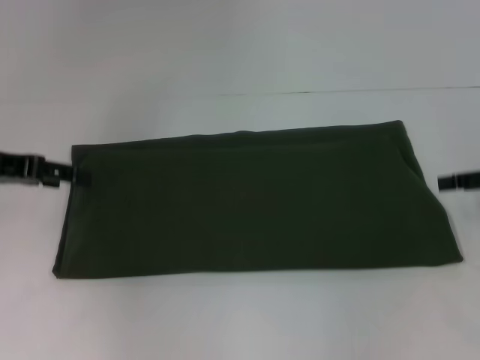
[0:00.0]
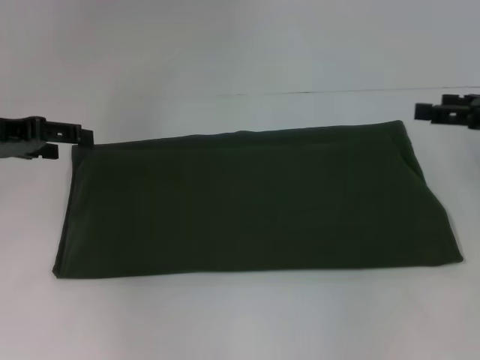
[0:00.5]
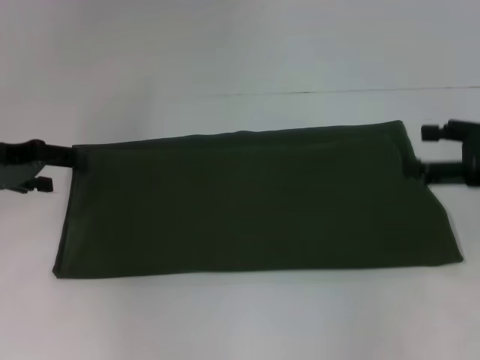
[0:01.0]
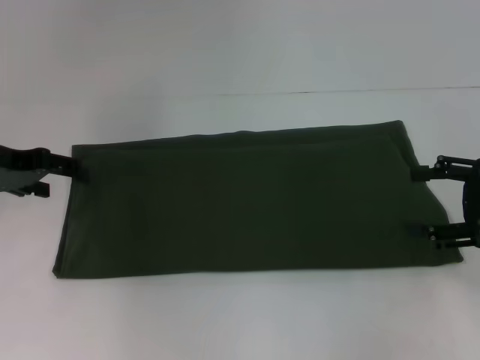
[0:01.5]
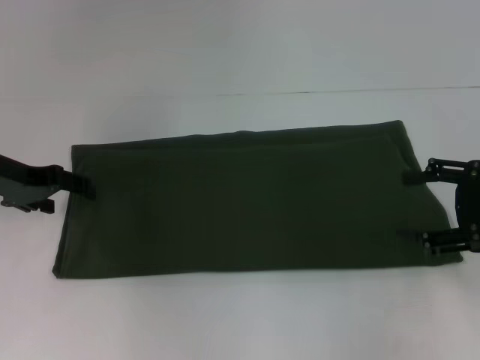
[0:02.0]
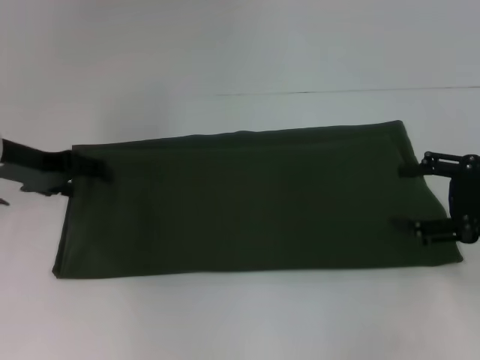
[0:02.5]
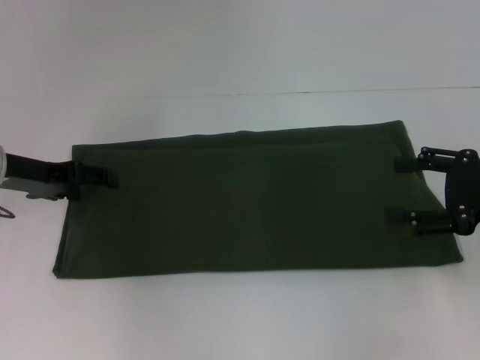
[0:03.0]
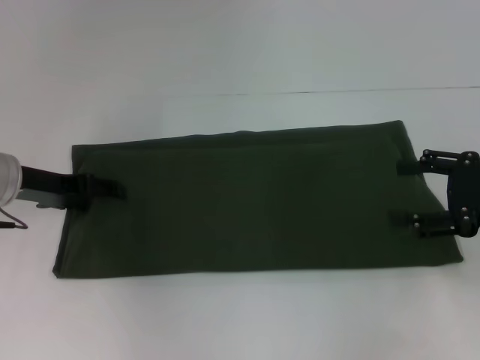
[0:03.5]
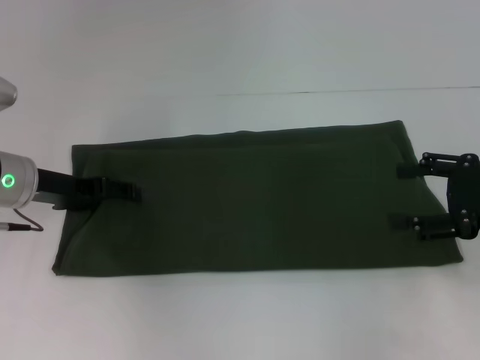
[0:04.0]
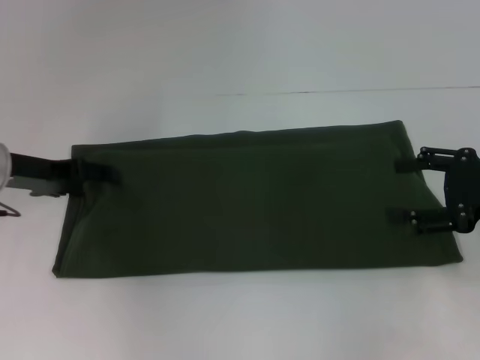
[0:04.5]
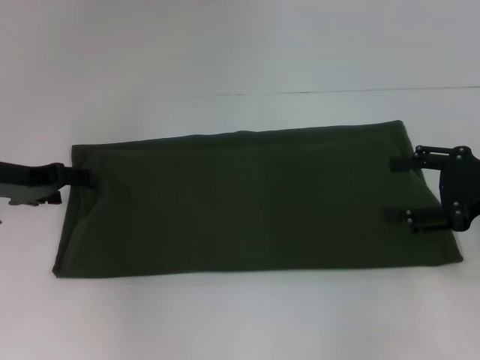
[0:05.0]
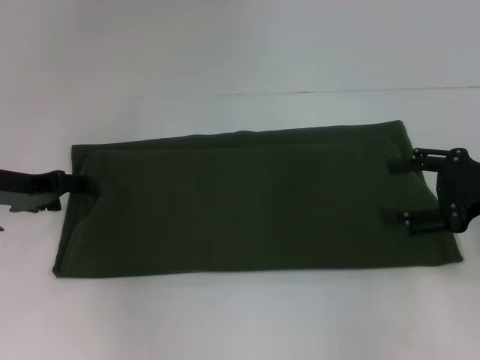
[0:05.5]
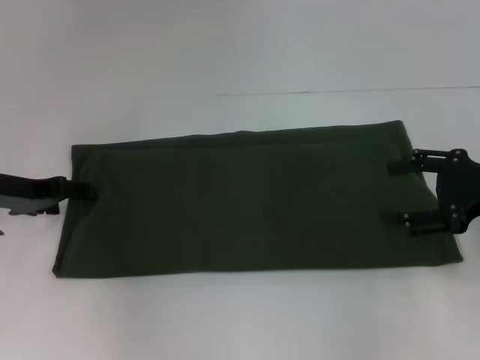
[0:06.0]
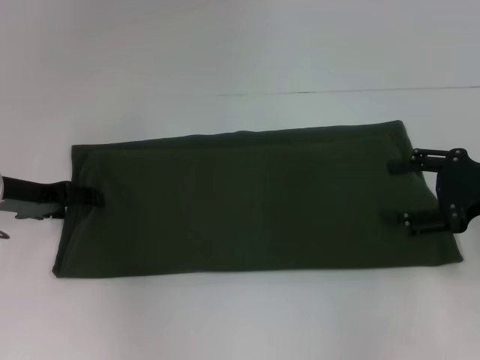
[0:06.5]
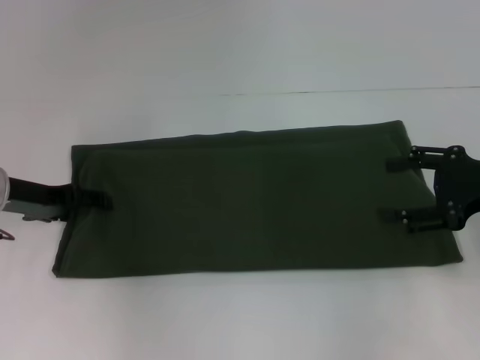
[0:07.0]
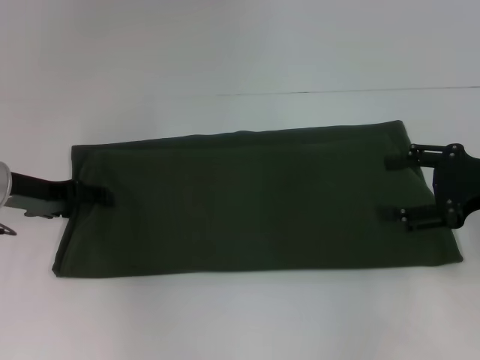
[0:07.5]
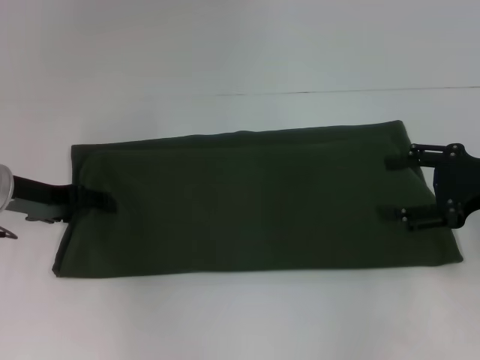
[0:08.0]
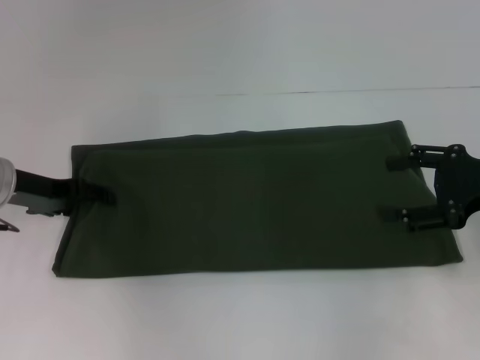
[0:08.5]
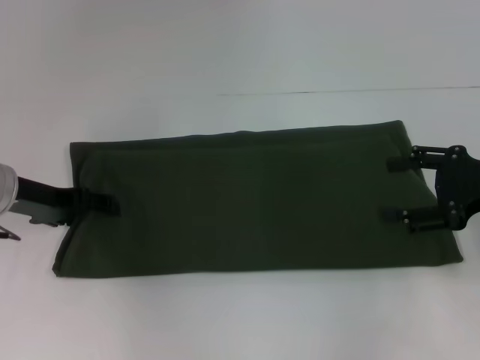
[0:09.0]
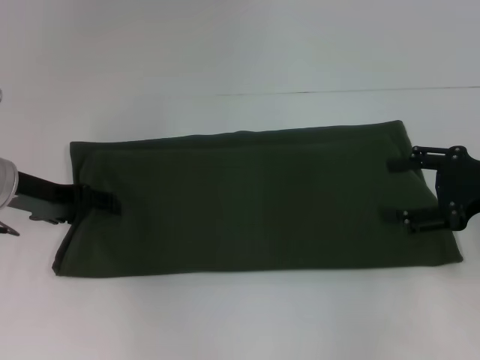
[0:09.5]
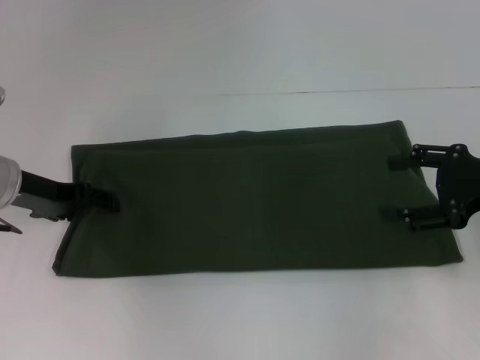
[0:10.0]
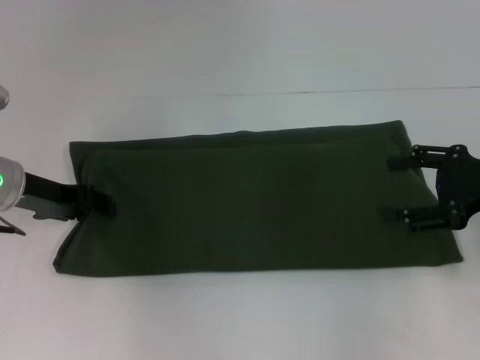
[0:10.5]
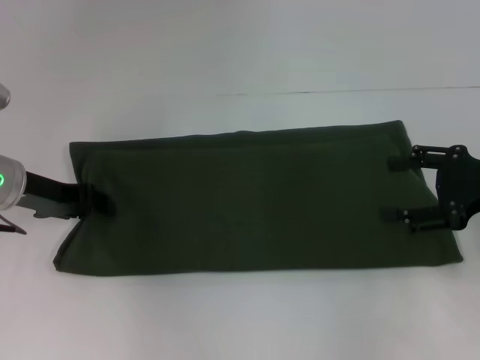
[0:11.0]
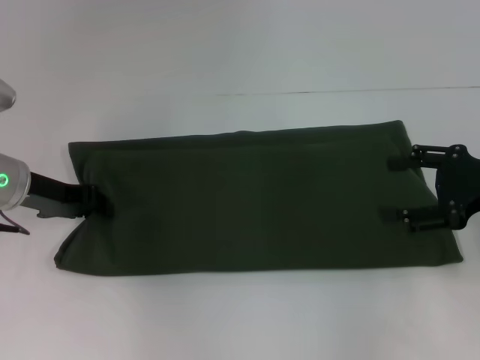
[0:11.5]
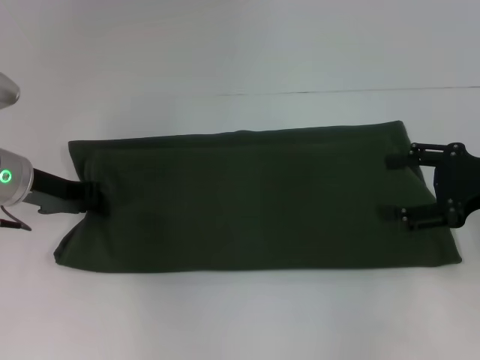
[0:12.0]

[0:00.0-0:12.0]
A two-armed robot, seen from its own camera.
0:00.0 to 0:02.0: The left gripper opens up, while the right gripper changes place by about 5 cm.
0:02.0 to 0:04.0: The left gripper ends up approximately 5 cm from where it was.
0:04.0 to 0:08.0: There are only small adjustments of the grippers.
0:08.0 to 0:10.0: Both grippers stay about where they are.
0:10.0 to 0:12.0: The left gripper closes up.

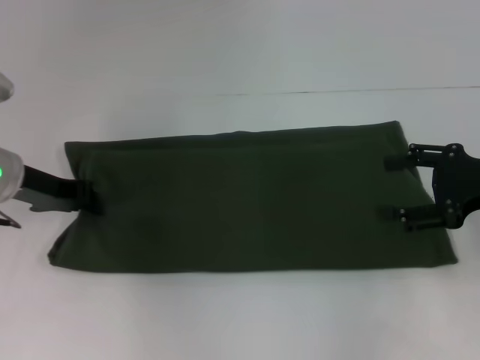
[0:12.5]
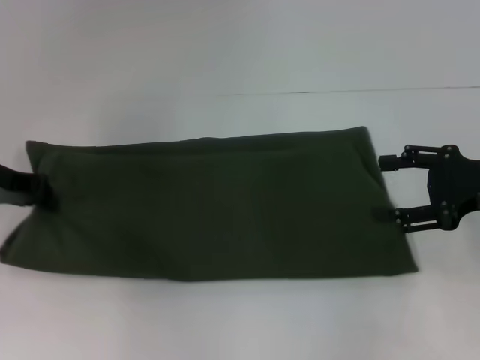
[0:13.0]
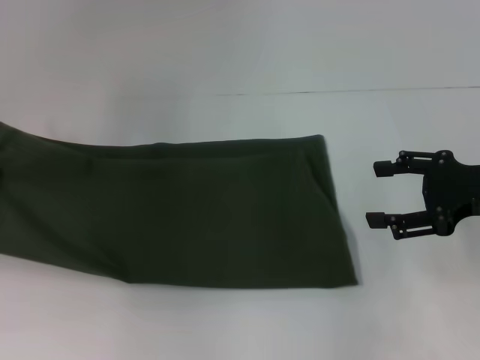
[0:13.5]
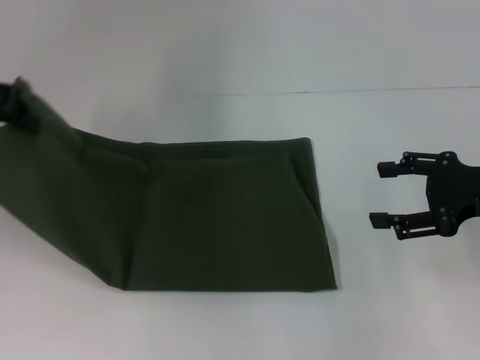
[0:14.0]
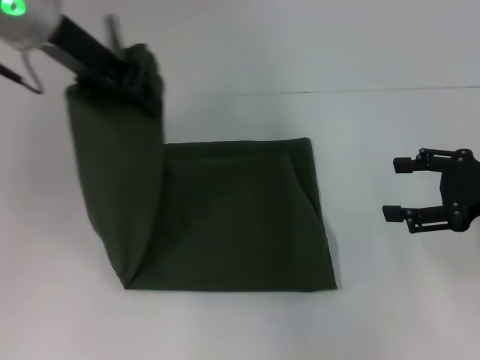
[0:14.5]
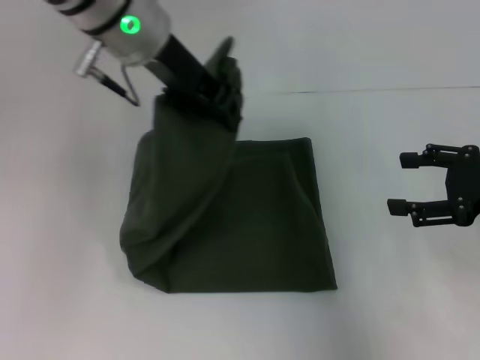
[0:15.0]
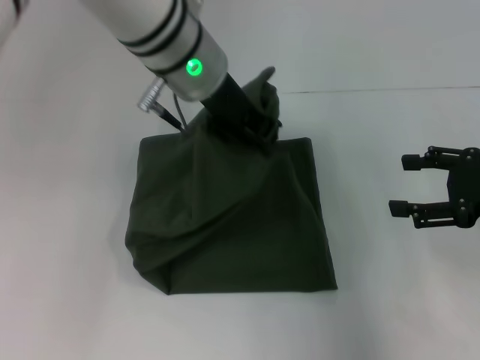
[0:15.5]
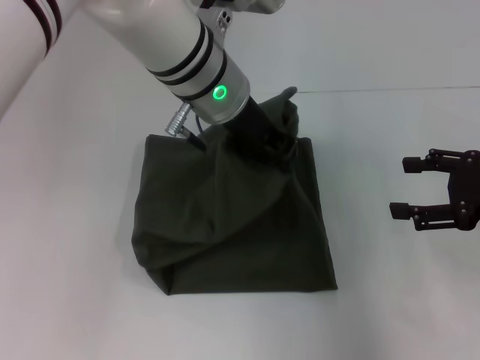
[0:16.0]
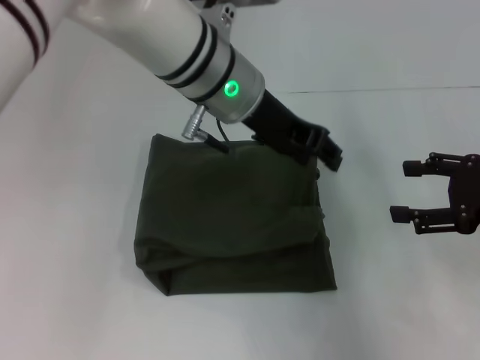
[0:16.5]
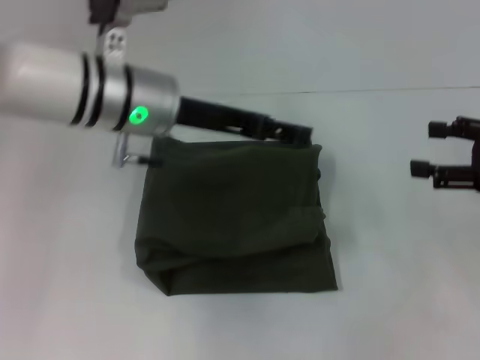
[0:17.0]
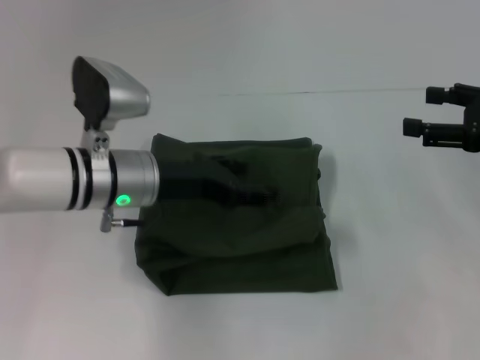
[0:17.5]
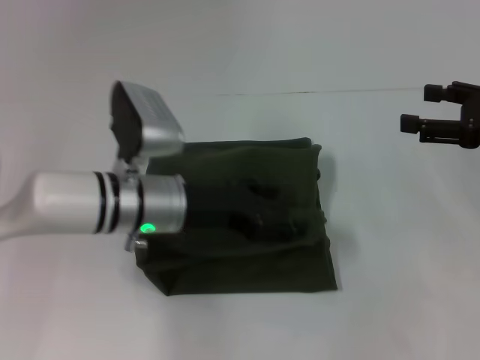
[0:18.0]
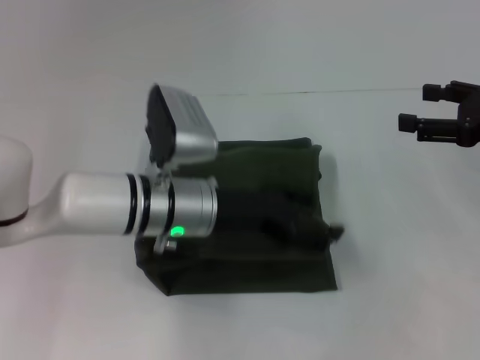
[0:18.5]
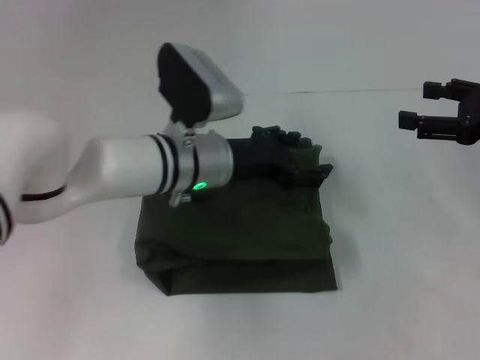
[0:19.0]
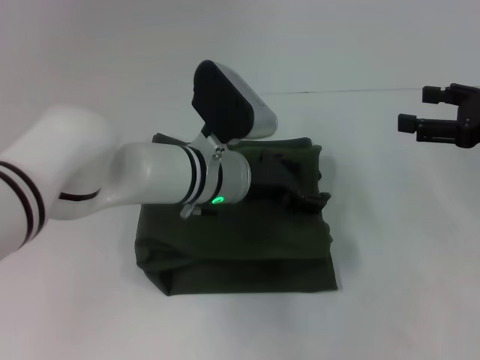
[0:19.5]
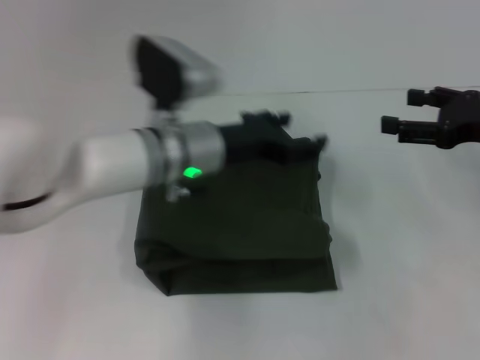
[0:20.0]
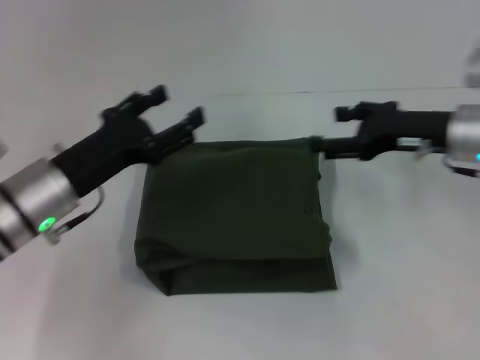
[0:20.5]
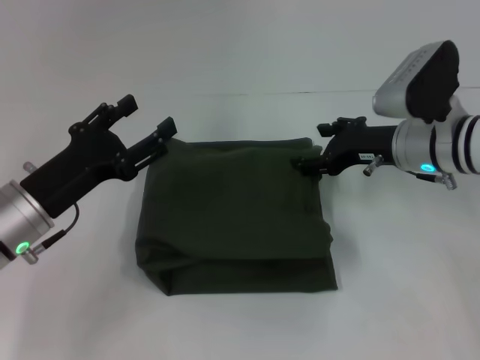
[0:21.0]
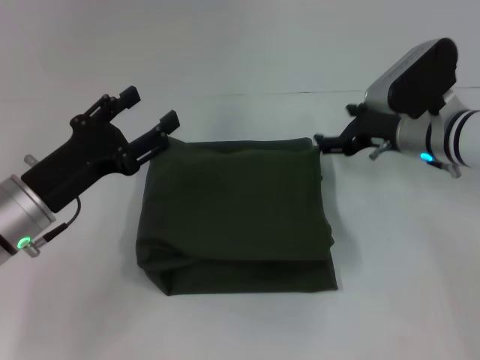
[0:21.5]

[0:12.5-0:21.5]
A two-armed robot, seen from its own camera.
Step, 0:12.5 to 0:18.5: Fold the clothes with your left hand.
0:12.5 to 0:14.5: The left gripper heads upward and to the right, covering approximately 20 cm.
0:14.5 to 0:17.0: The left gripper is displaced downward and to the right by some 10 cm, and opens up.
0:17.0 to 0:19.5: The left gripper heads downward and to the right, covering some 10 cm.
0:19.5 to 0:21.5: The right gripper shifts some 15 cm to the left, forward and downward; the left gripper moves to the left and backward, approximately 20 cm.

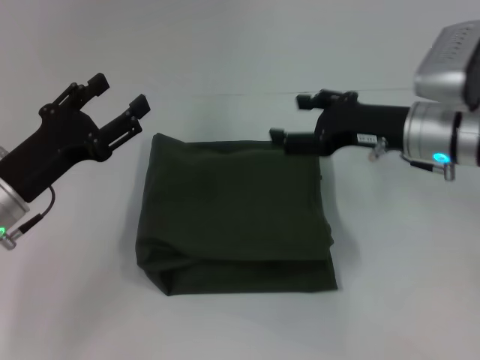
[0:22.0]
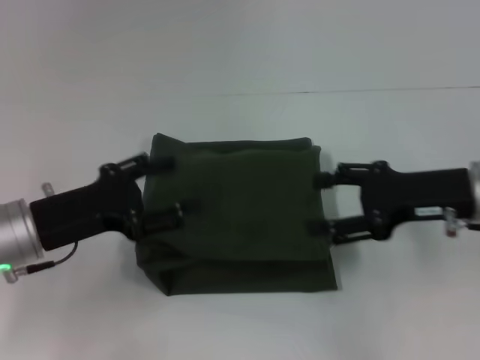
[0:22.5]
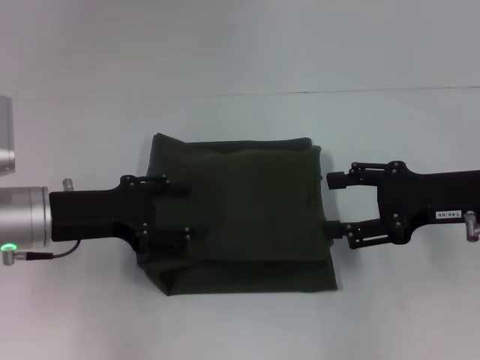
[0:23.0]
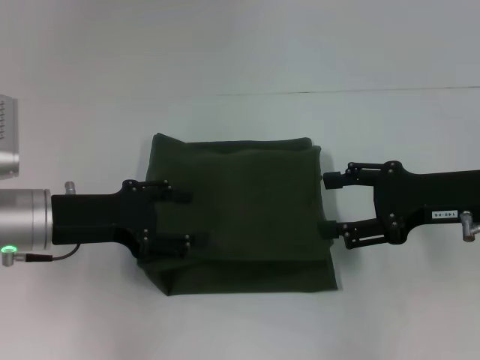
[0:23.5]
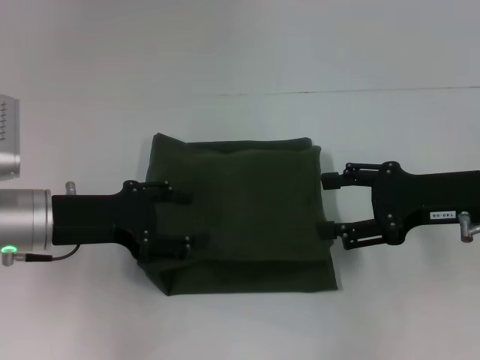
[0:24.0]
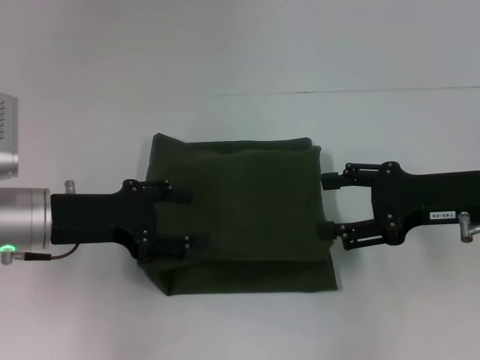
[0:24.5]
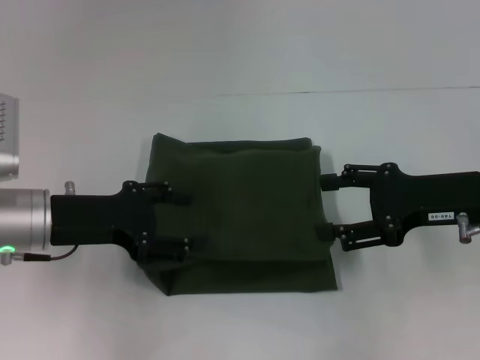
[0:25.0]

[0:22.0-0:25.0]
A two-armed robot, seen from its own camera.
0:22.0 to 0:23.5: The right gripper travels backward and to the right by approximately 10 cm.
0:23.5 to 0:25.0: Both grippers stay about where they are.

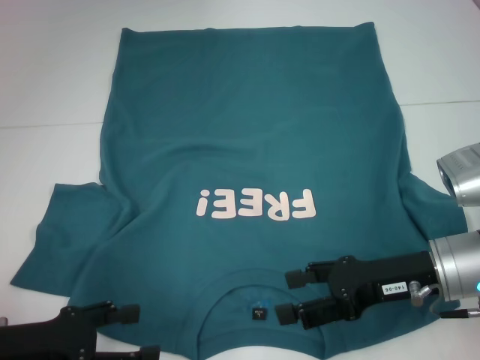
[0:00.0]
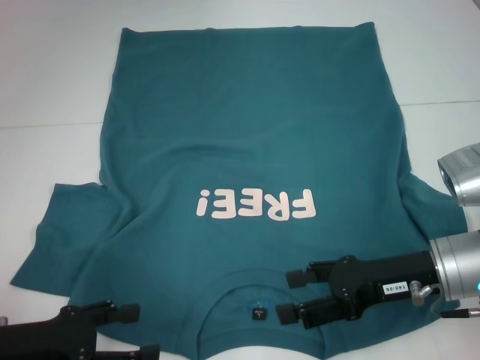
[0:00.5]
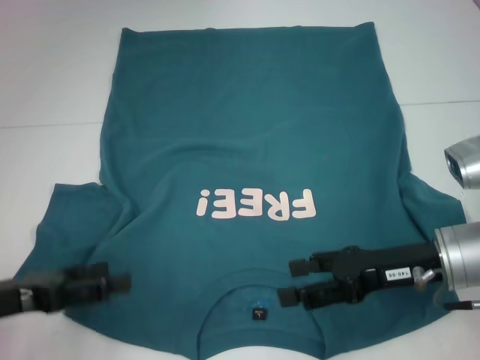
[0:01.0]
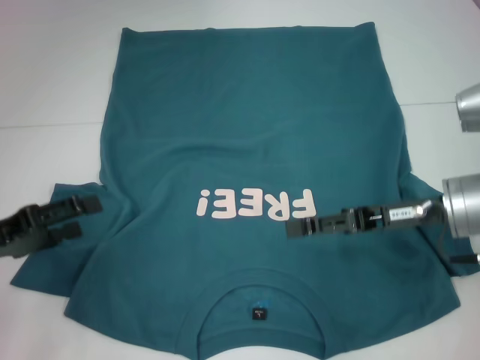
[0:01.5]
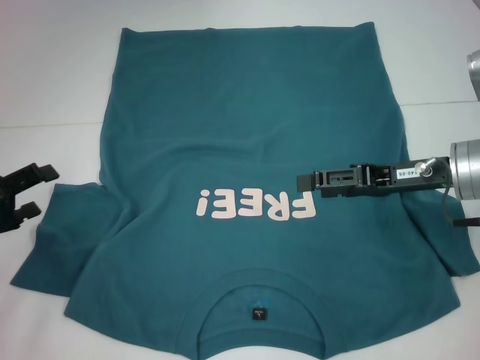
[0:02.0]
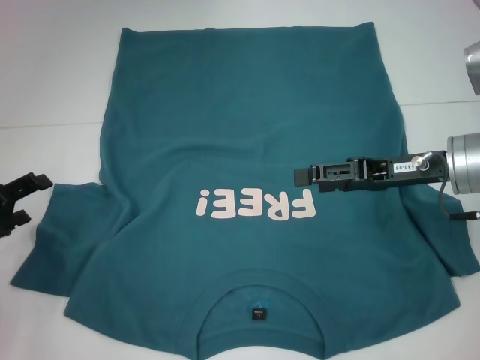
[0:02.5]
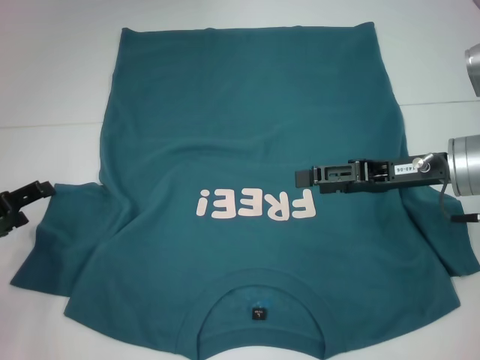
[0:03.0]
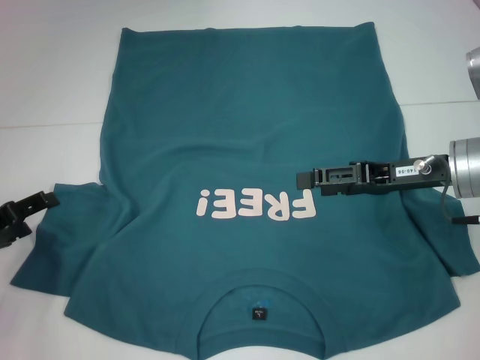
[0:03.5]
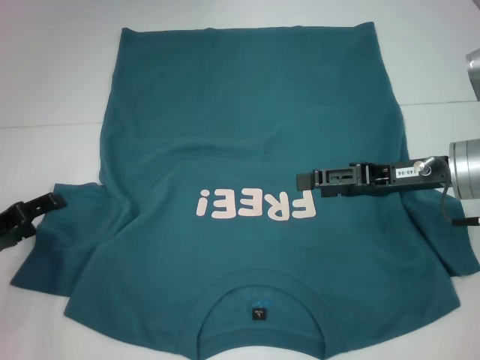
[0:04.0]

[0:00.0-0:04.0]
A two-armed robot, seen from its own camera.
0:00.0 to 0:02.0: The right gripper heads forward, covering about 5 cm; the left gripper goes roughly 10 cm forward and to the left.
0:02.0 to 0:04.0: The grippers move only a little.
